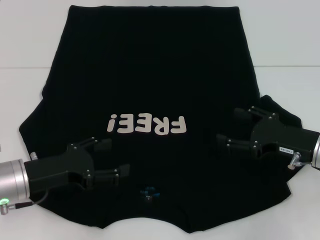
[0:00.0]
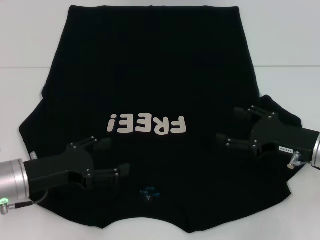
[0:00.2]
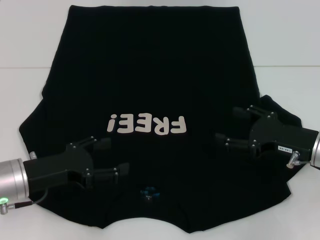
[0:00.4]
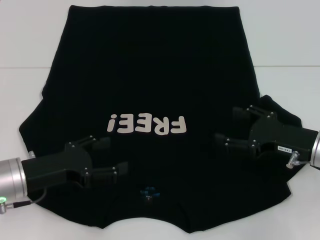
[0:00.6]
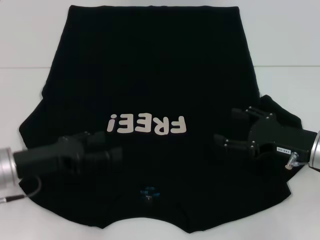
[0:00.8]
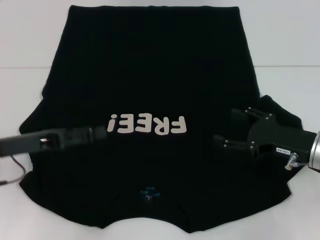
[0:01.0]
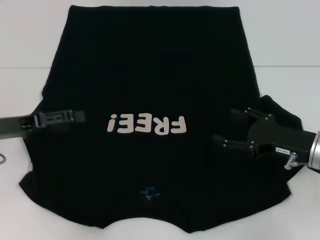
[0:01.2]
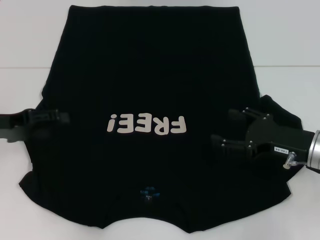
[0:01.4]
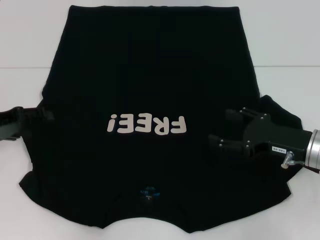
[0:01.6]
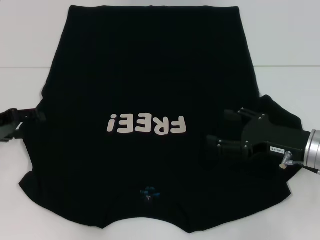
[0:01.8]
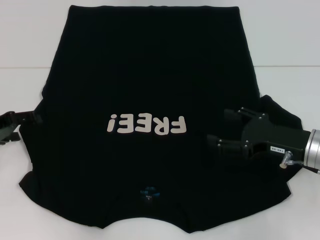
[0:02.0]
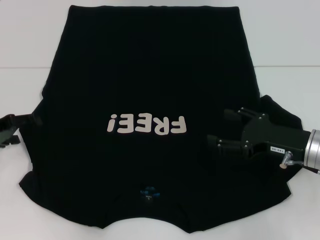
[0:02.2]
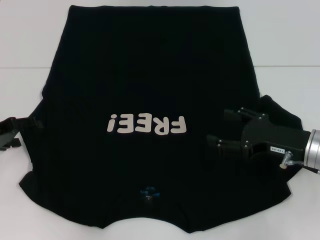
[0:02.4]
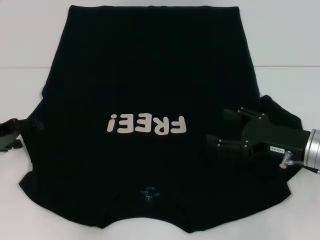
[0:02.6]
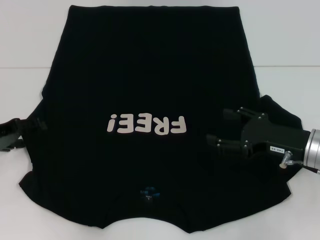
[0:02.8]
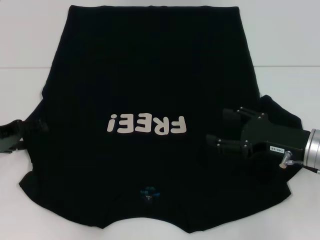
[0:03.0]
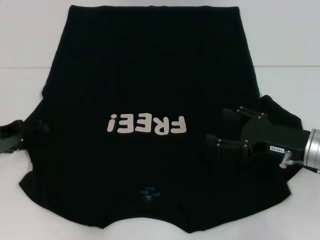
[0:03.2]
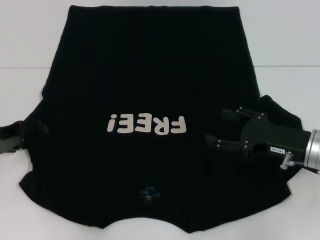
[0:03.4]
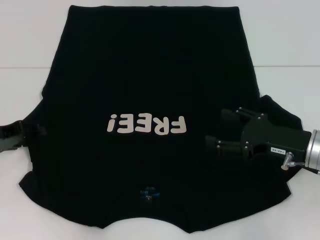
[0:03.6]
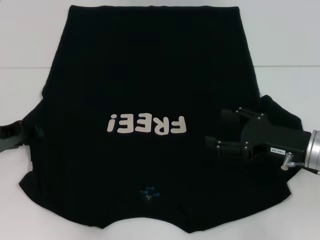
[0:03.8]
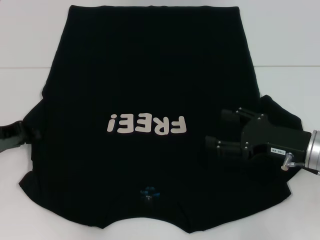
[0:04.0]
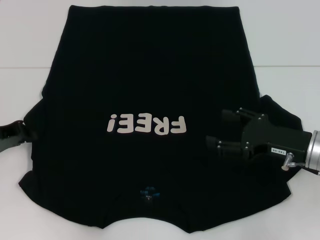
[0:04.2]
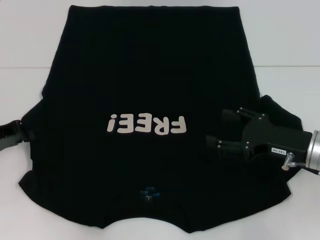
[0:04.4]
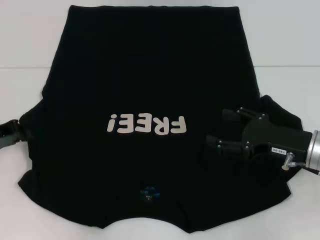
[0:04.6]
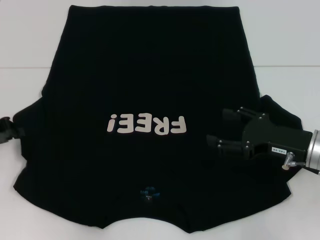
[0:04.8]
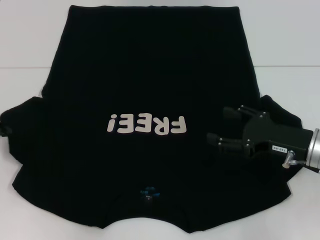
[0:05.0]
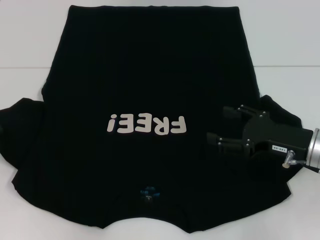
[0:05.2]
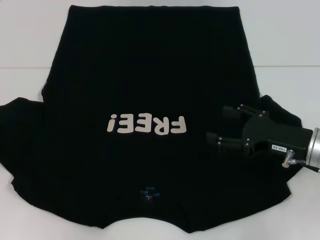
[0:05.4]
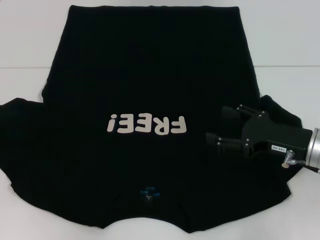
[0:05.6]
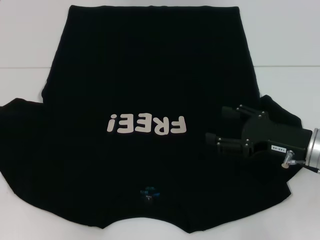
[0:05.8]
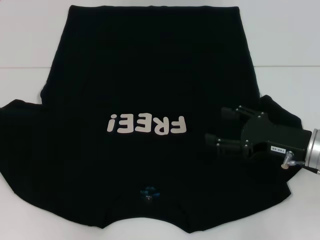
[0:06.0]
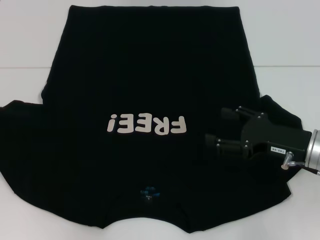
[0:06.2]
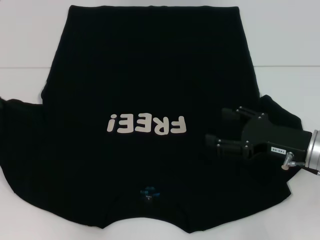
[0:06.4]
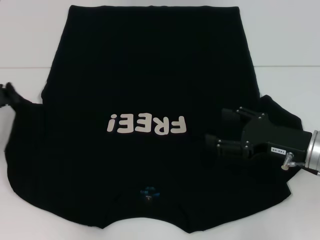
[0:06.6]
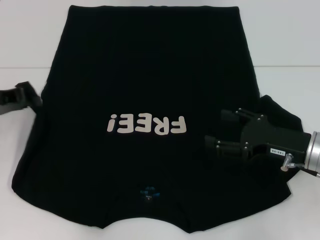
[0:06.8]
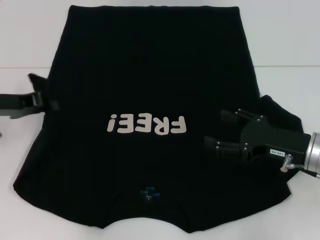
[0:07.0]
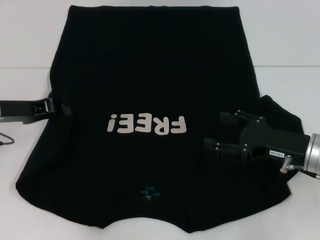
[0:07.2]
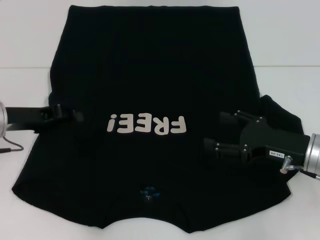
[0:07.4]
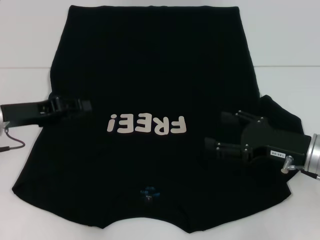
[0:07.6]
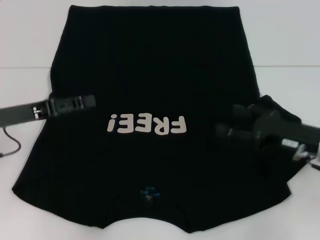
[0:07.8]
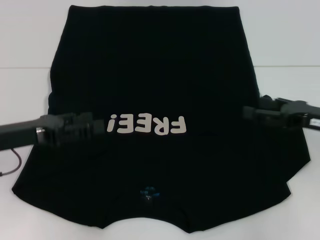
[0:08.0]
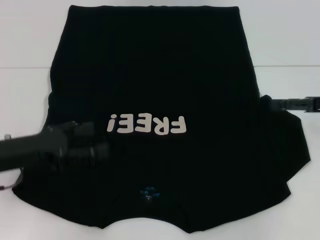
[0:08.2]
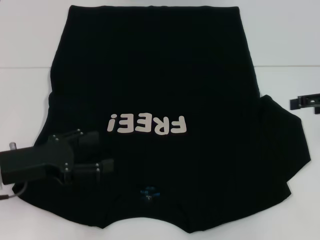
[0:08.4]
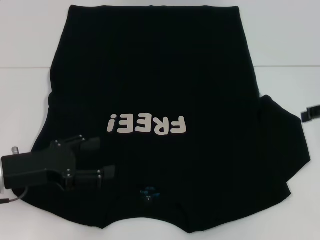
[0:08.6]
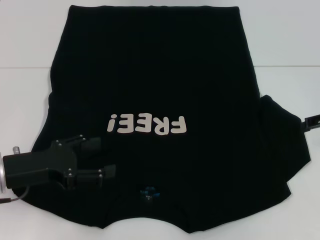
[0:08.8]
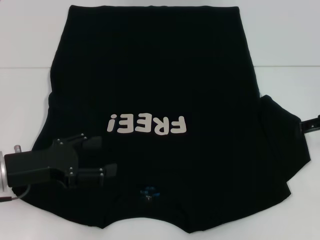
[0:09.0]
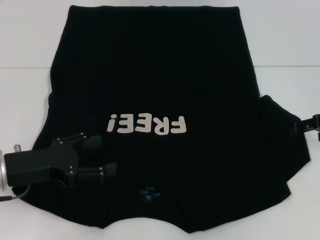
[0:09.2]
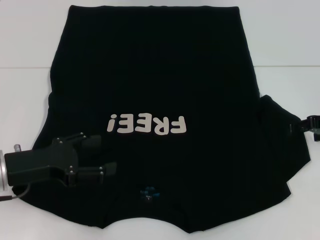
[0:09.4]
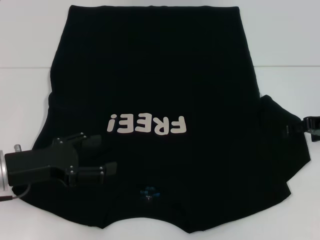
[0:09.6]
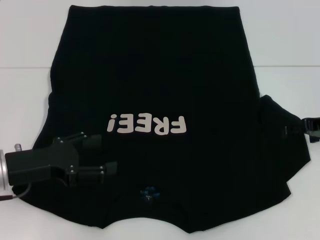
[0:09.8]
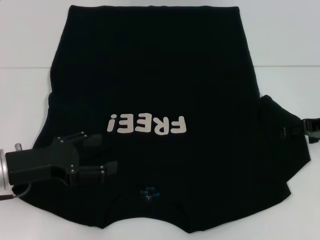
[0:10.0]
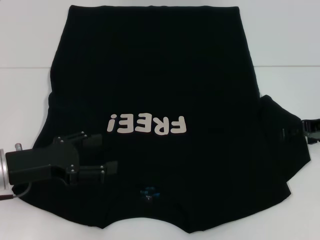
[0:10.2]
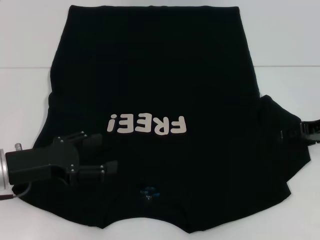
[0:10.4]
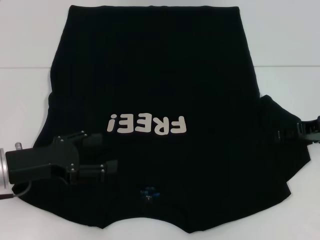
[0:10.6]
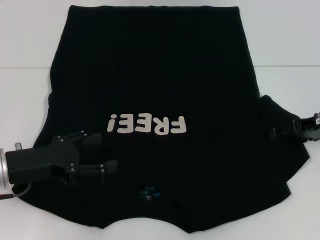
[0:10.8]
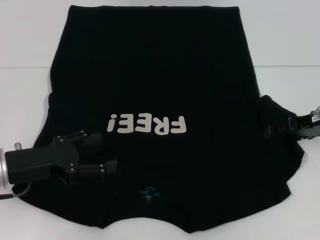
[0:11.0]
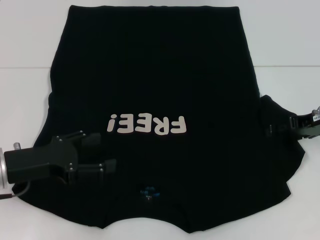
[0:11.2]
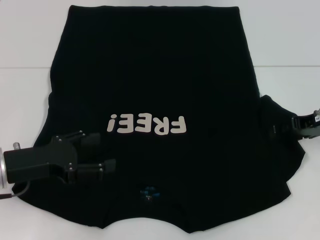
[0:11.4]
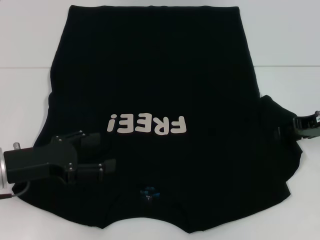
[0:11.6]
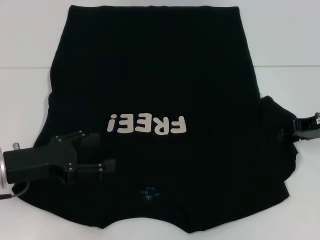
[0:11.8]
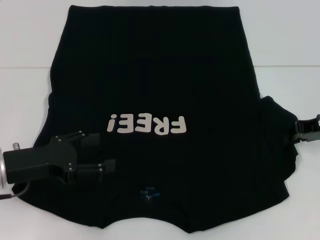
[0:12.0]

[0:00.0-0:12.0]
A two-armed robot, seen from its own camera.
Step, 0:00.0 to 0:07.0: Fold the bottom left sleeve with your left hand.
0:00.0 to 0:01.6: The left gripper shifts roughly 15 cm to the left, forward and upward.
0:01.6 to 0:03.0: The grippers make only small movements.
0:03.0 to 0:04.4: The left gripper closes its fingers.
0:04.4 to 0:06.0: The left gripper travels to the left by approximately 5 cm.
0:06.0 to 0:07.6: The left gripper goes about 10 cm to the right.
0:07.6 to 0:09.0: The right gripper is displaced to the right, upward and forward by approximately 15 cm. Meanwhile the left gripper goes roughly 5 cm backward, and opens.
0:09.0 to 0:10.4: There are only small adjustments of the grippers.
0:10.4 to 0:12.0: The right gripper closes up.

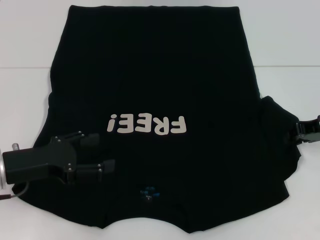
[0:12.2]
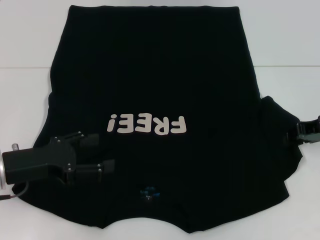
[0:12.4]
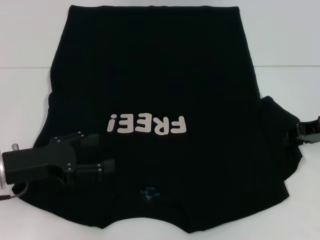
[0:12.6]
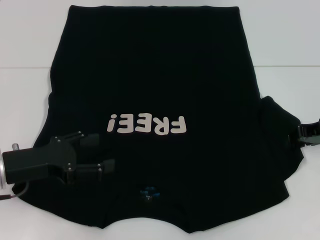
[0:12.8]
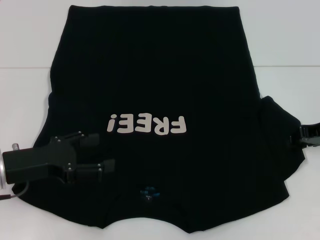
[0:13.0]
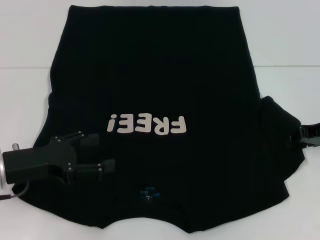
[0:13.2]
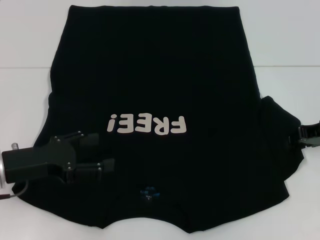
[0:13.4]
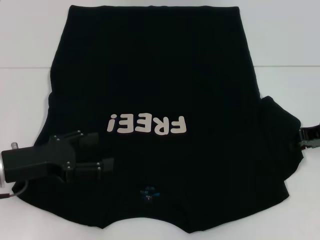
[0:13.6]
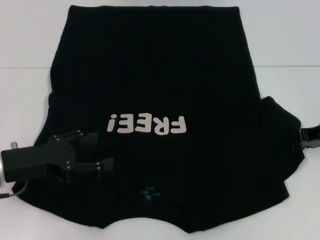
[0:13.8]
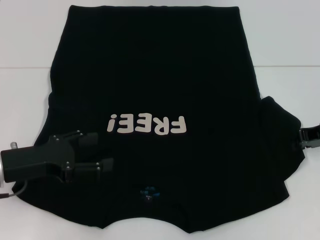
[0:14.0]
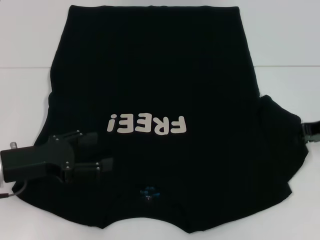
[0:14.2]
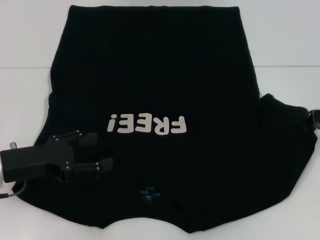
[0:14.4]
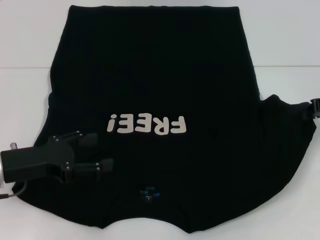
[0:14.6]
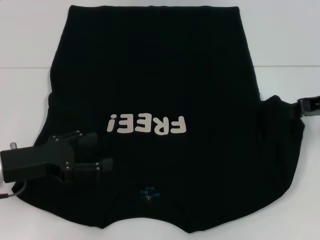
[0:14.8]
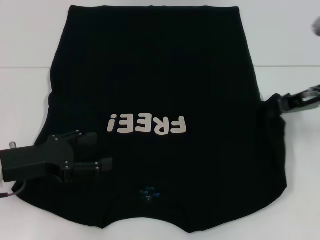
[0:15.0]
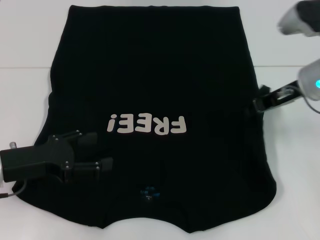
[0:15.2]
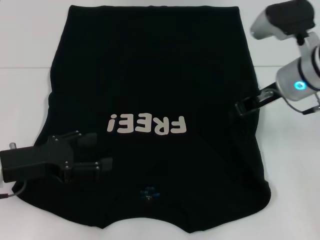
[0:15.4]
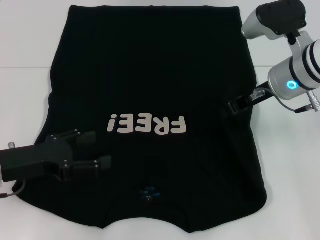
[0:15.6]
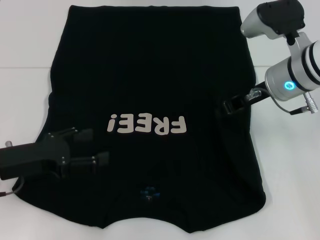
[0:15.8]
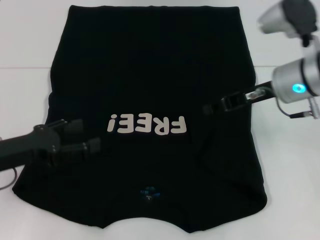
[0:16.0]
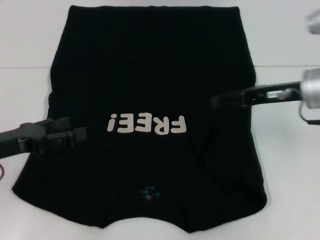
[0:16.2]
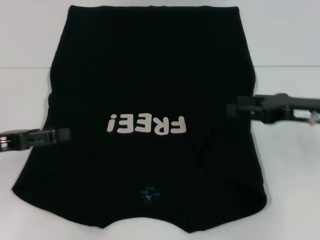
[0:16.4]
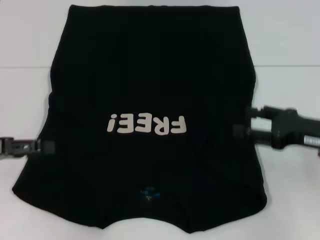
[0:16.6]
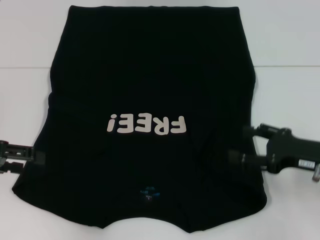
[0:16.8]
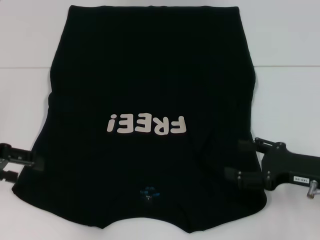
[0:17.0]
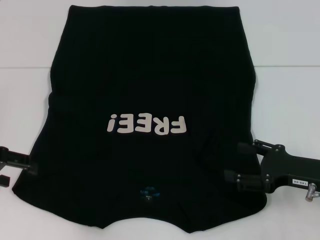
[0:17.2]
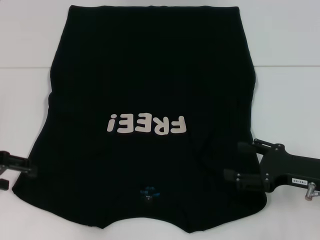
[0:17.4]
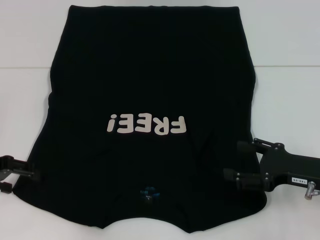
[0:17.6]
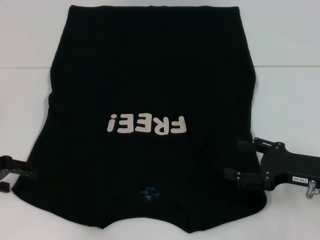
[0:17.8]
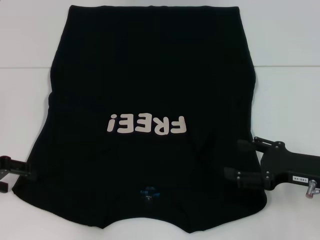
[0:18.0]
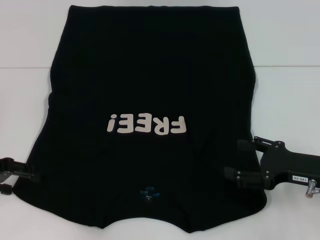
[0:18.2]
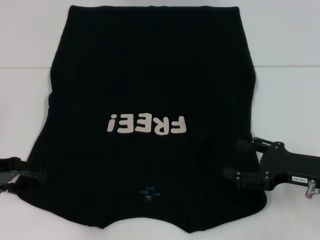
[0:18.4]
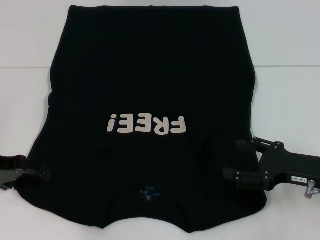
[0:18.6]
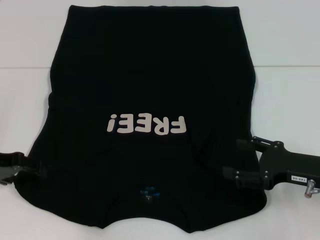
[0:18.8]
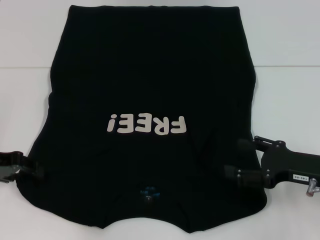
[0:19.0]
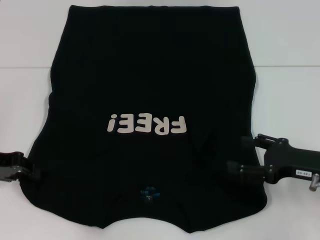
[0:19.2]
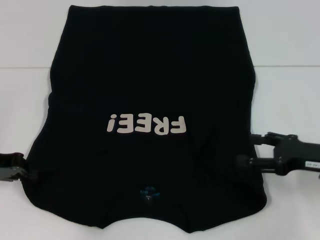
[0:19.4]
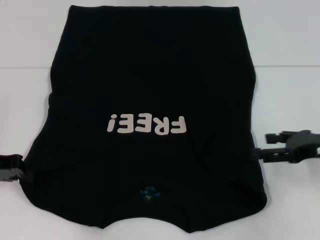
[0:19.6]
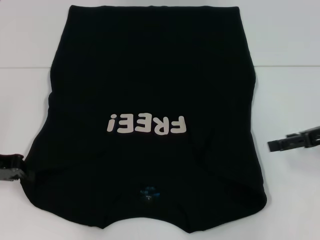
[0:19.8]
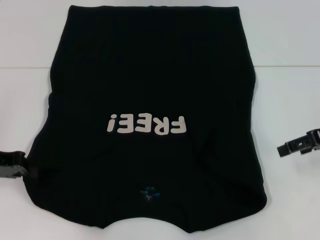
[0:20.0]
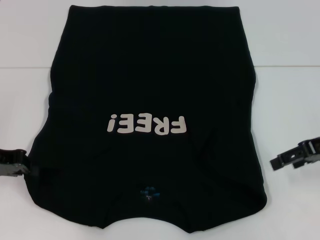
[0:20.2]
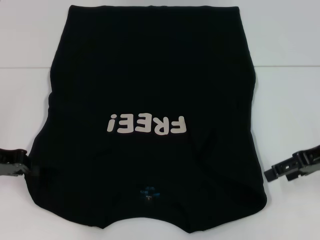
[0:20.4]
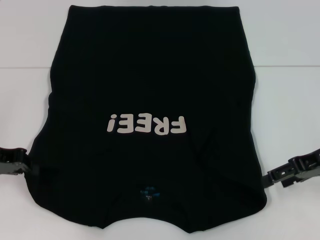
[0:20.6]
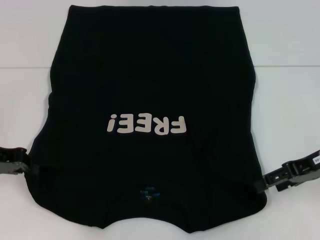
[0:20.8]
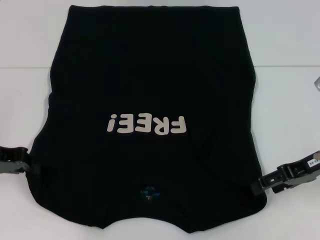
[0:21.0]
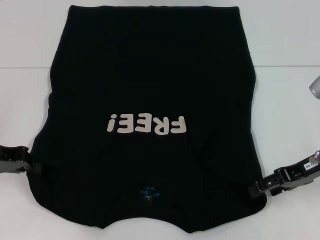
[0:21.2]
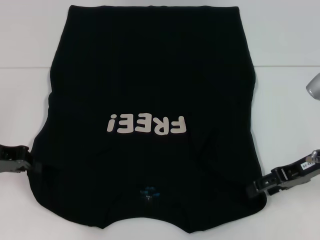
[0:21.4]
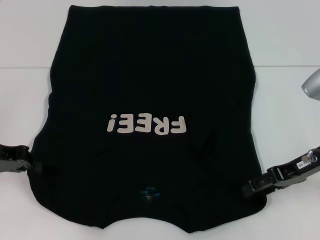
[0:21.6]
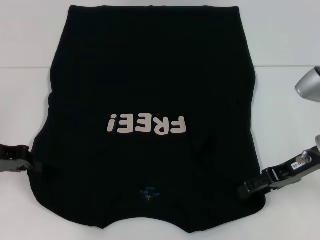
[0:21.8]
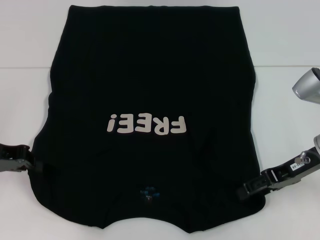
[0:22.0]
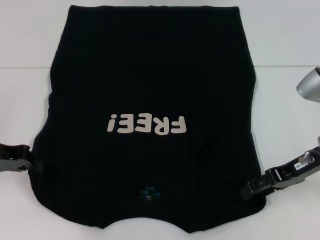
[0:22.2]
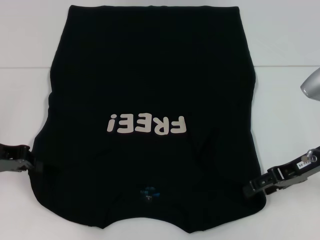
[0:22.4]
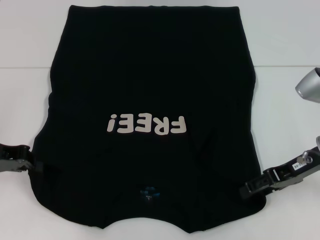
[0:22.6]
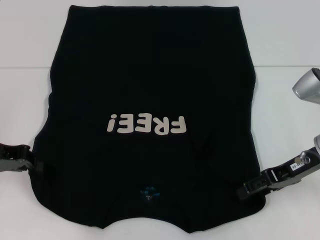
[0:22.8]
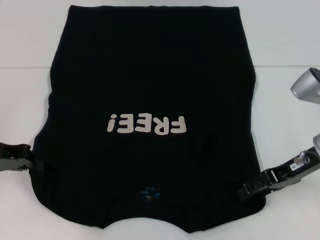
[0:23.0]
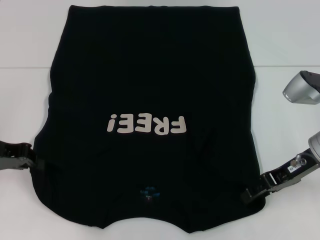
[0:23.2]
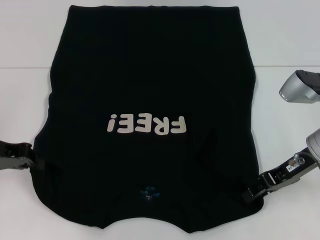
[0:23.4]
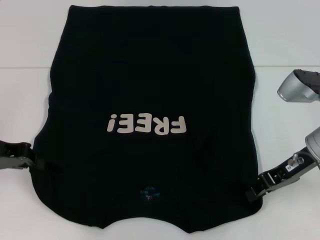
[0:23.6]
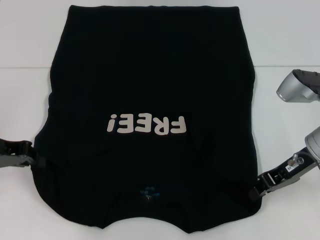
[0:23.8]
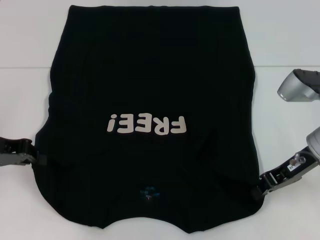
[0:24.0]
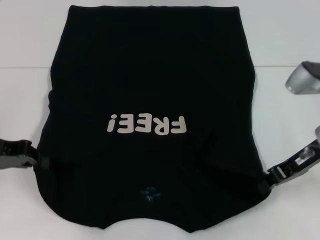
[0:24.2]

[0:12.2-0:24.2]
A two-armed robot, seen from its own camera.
Step, 0:12.2 to 0:16.0: Fold the bottom right sleeve with your right hand.
Step, 0:16.2 to 0:20.0: Grab the bottom left corner with your left hand.
Step, 0:20.2 to 0:24.2: Grab the bottom right corner with your right hand.
0:12.2 to 0:13.8: Neither gripper changes place.
0:13.8 to 0:15.2: The right gripper shifts some 10 cm to the left and upward.
0:15.2 to 0:16.6: The right gripper shifts roughly 15 cm backward, to the right and downward, and opens up, while the left gripper travels to the left by some 5 cm.
0:18.2 to 0:19.8: The left gripper closes its fingers. The right gripper moves upward and forward, roughly 10 cm.
0:19.8 to 0:21.2: The right gripper shifts by about 5 cm.
0:21.2 to 0:22.6: The grippers move only a little.
0:22.6 to 0:24.2: The right gripper closes.
